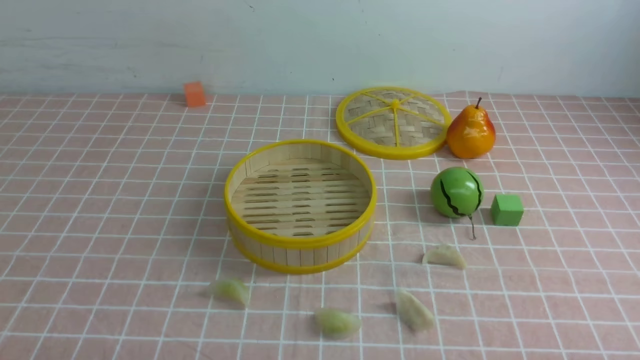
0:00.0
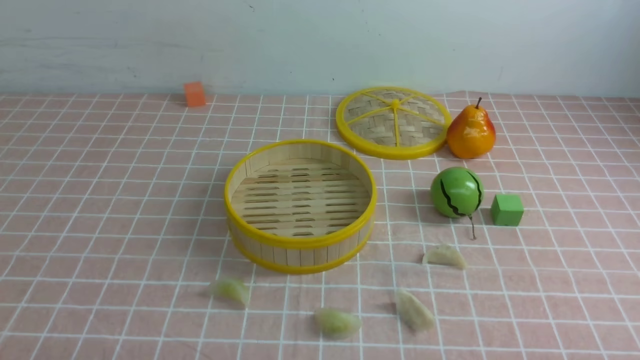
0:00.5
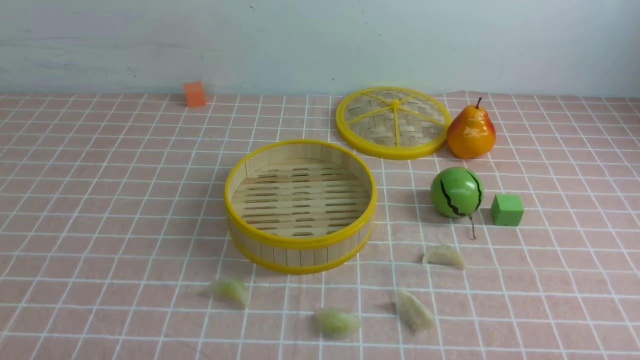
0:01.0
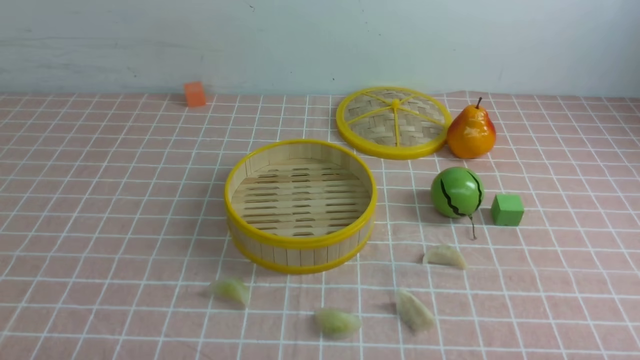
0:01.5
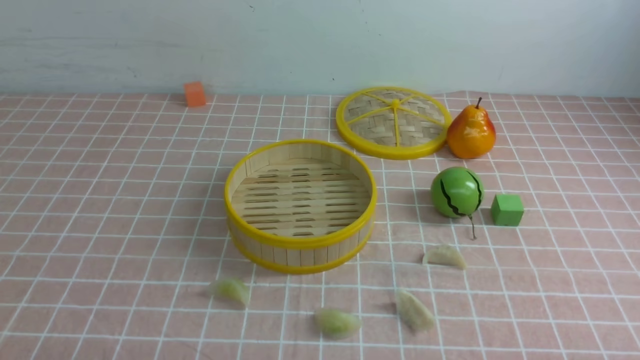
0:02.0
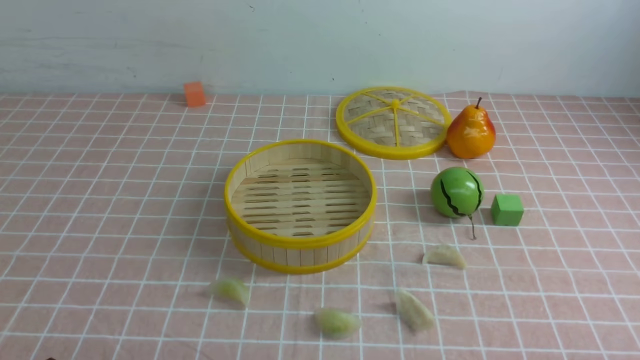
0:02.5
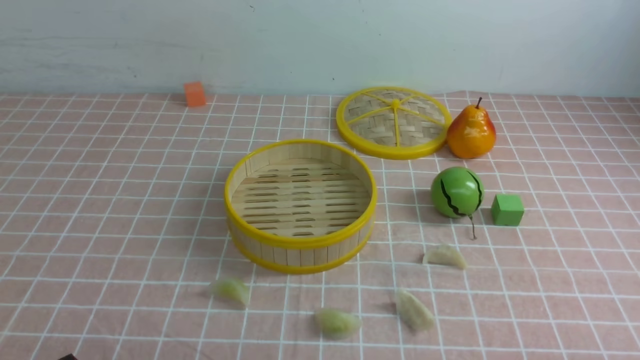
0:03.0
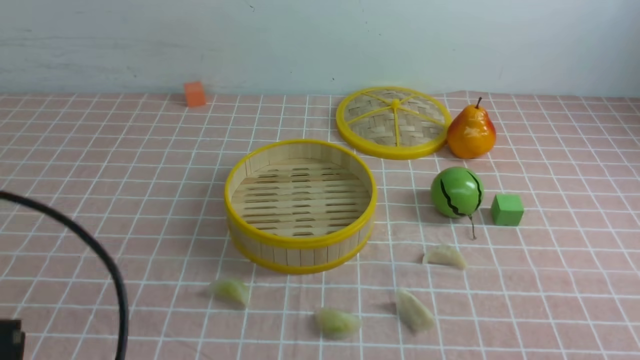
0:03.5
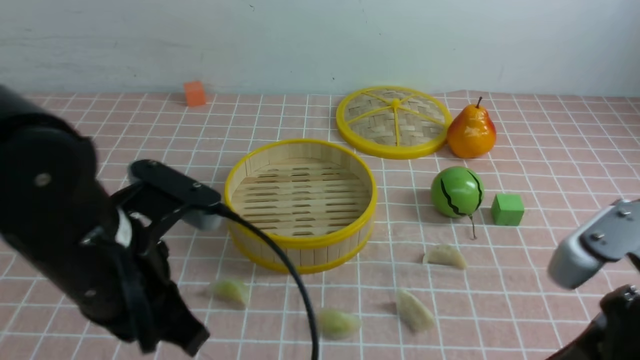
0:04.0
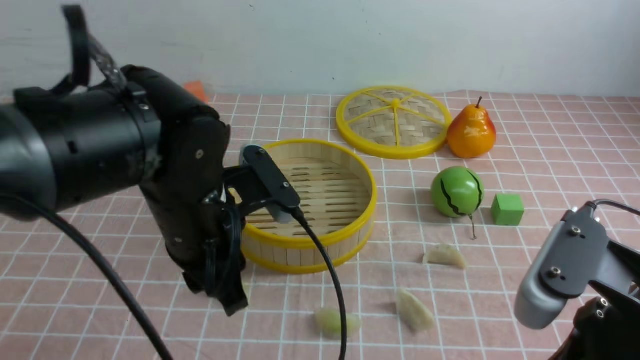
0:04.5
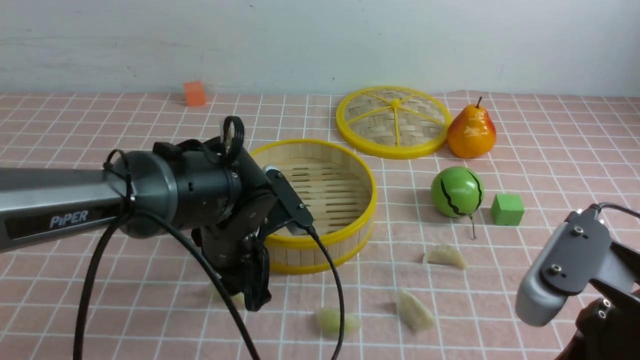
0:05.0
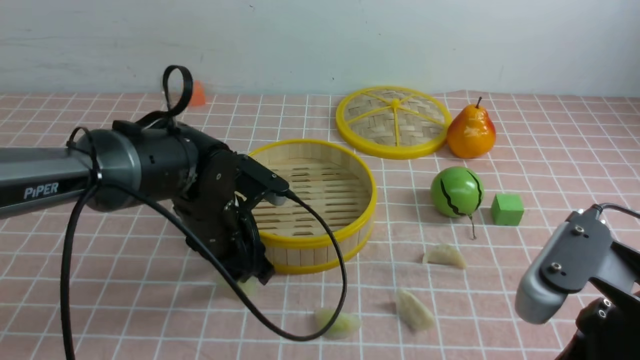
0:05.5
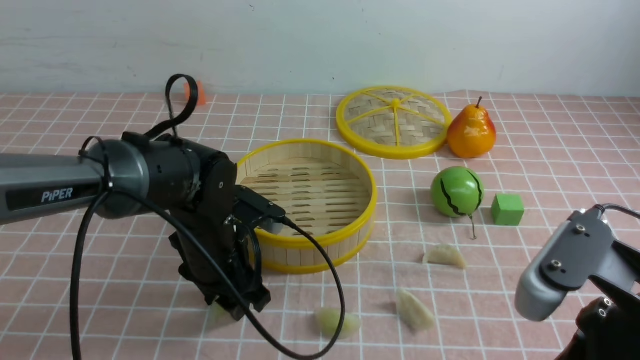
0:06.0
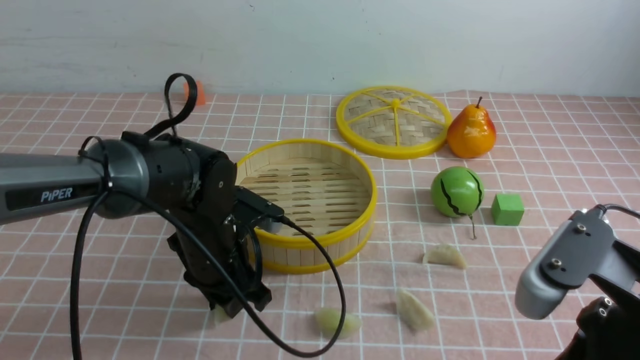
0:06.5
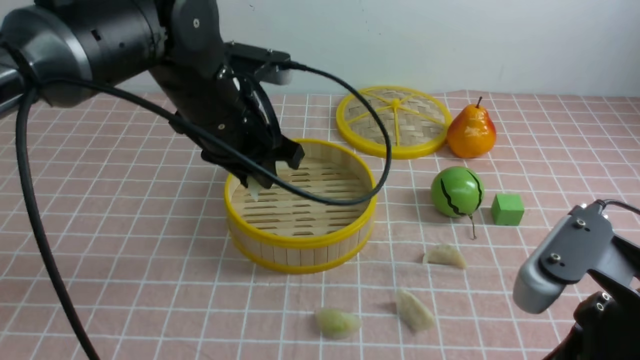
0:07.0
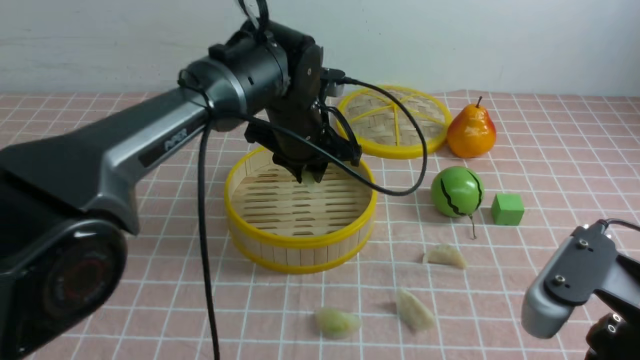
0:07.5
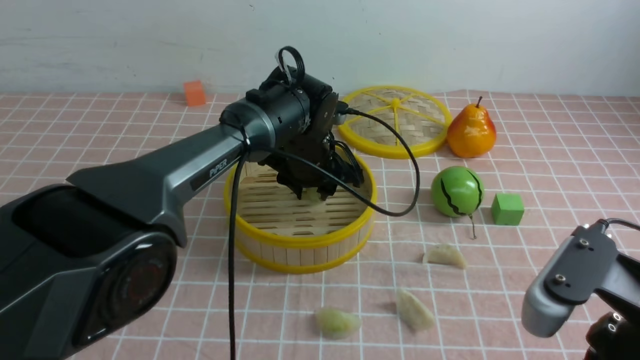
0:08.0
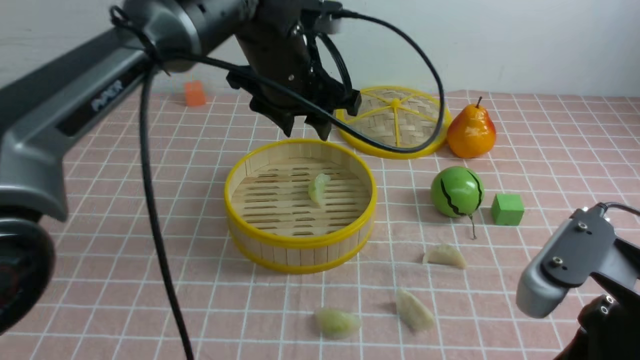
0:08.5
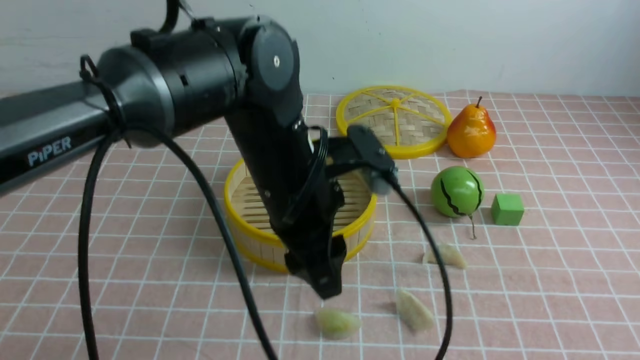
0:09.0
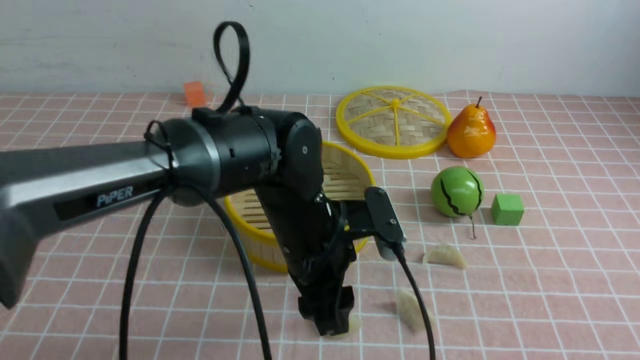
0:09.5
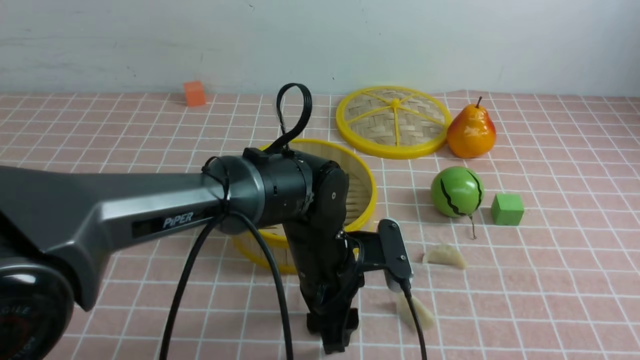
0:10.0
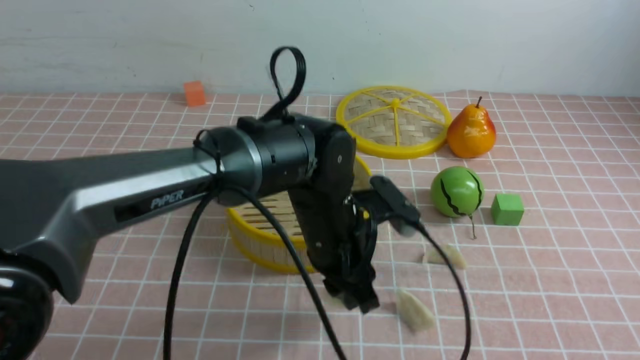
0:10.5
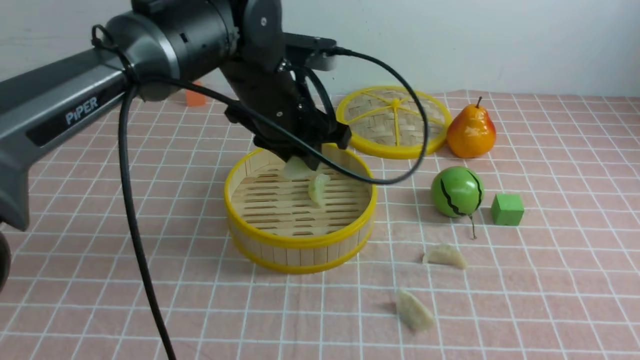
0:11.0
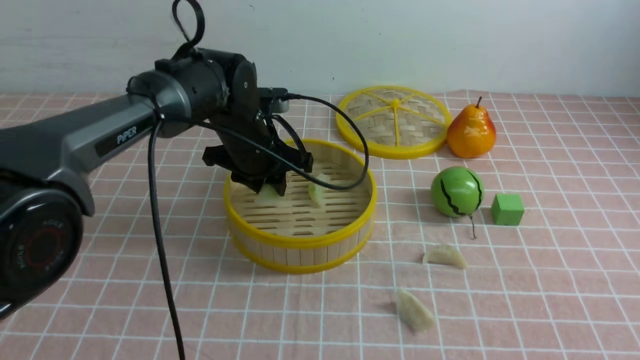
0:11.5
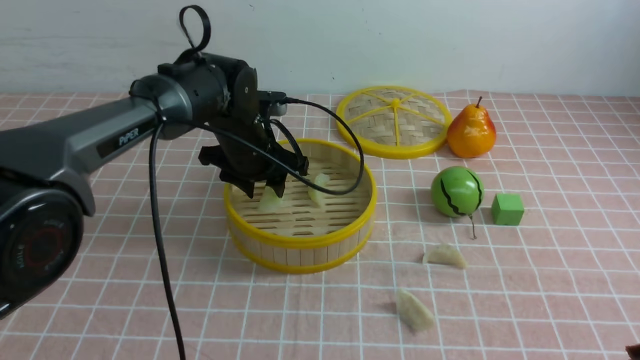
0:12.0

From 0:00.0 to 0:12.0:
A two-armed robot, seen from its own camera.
Task of the whole recording: put the dumplings into the steamer on the table with the pink tablecloth.
Step, from 0:00.0 to 0:06.5: use the left arm to grab a dumpling.
Step, from 0:07.0 to 0:08.0: use the left arm to put the dumpling into the steamer.
Step, from 0:08.5 to 0:10.0: use the left arm to grab a dumpling.
From 0:02.0 to 0:04.0: The right gripper travels upward, forward and to the left by about 15 cm, and closes up. Meanwhile the left gripper shifts approximately 20 cm forward, upward and to the right, and closes up.
From 0:04.0 to 0:06.0: The left gripper is displaced downward, forward and to the right by approximately 20 cm, and opens its fingers.
From 0:06.0 to 0:08.0: The left gripper travels forward and to the right by roughly 15 cm.
From 0:08.0 to 0:10.0: The left gripper is displaced backward by about 15 cm. Meanwhile the right gripper moves backward, upward and to the right, approximately 15 cm.
From 0:10.0 to 0:12.0: The left gripper moves forward and to the left, some 15 cm.

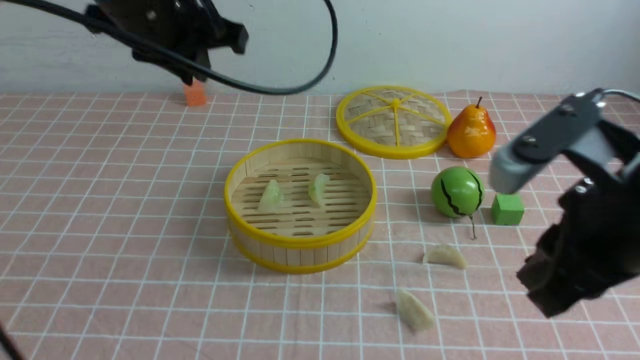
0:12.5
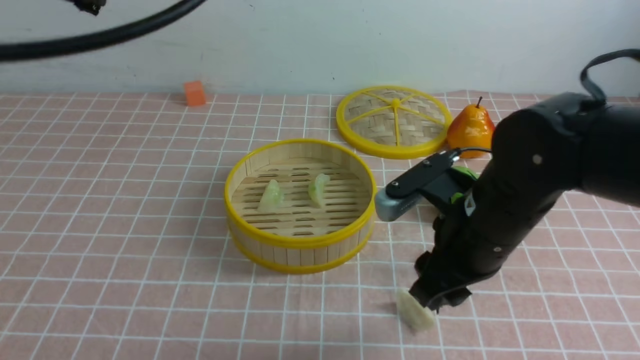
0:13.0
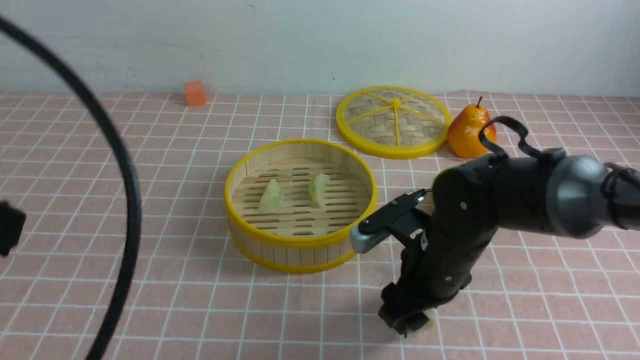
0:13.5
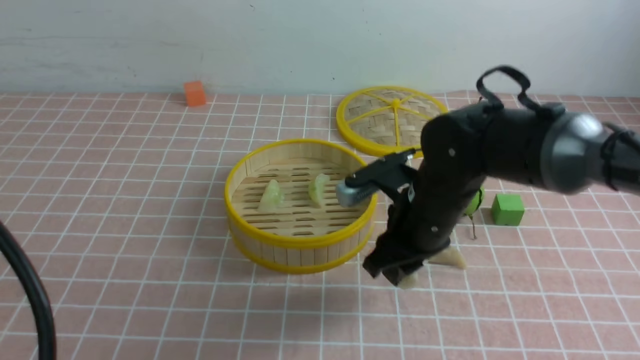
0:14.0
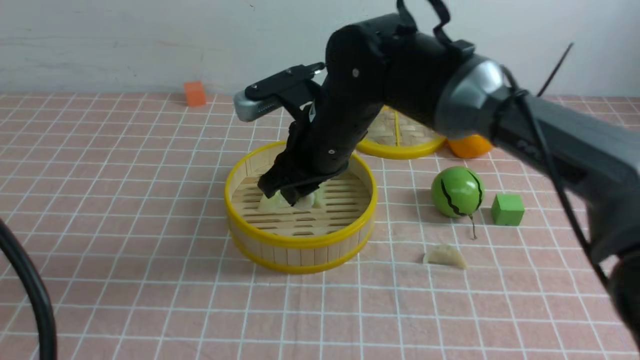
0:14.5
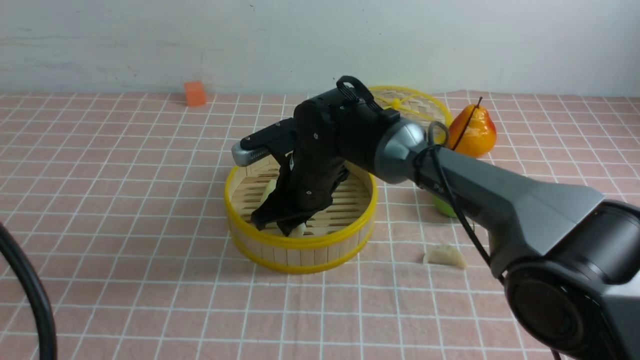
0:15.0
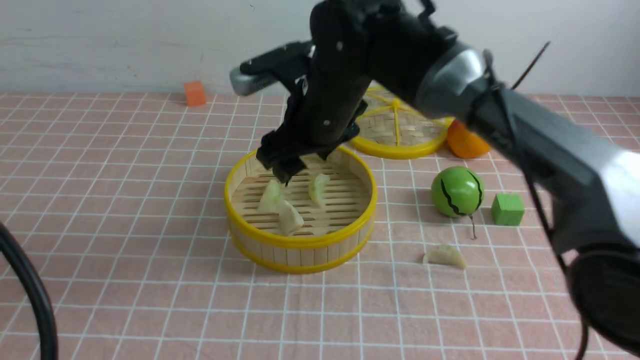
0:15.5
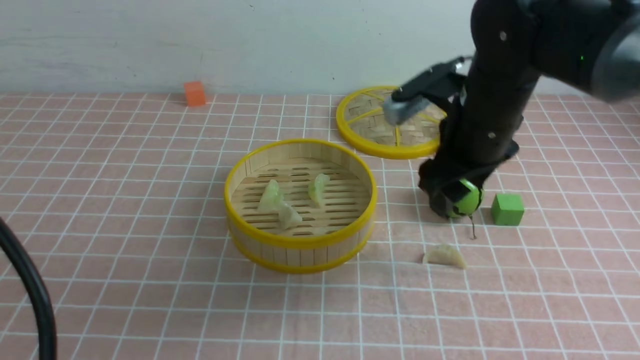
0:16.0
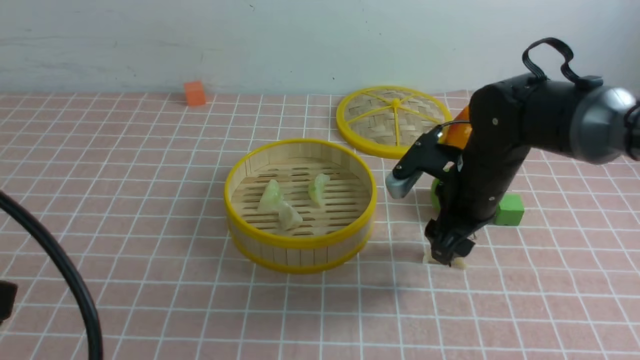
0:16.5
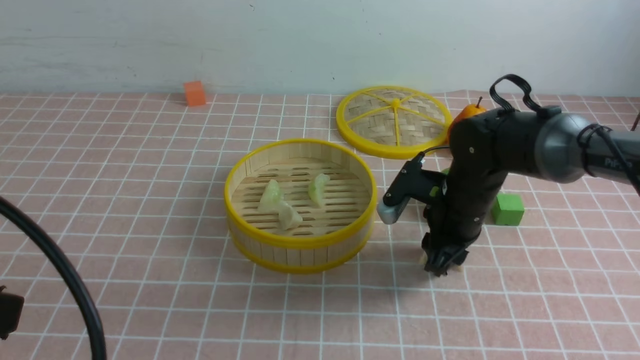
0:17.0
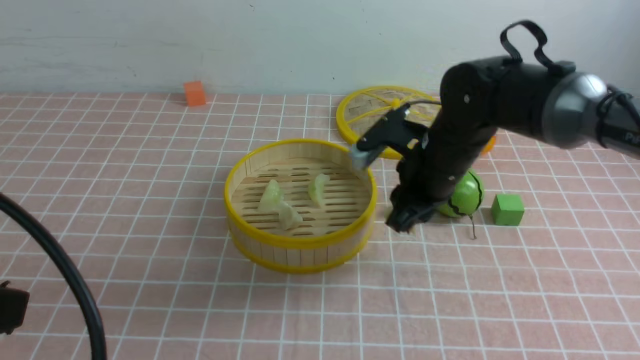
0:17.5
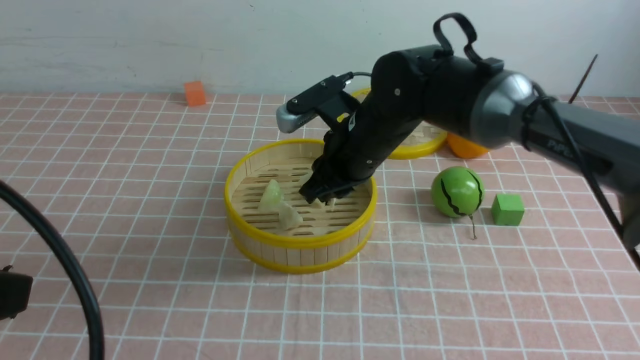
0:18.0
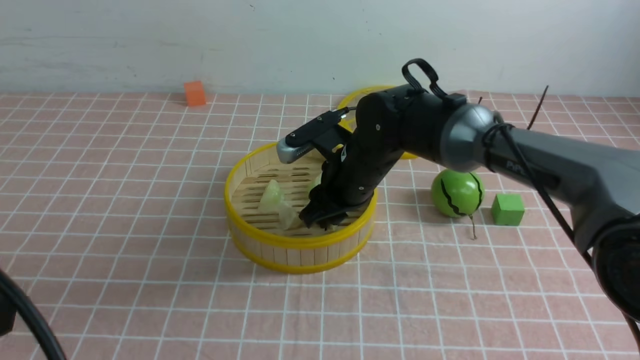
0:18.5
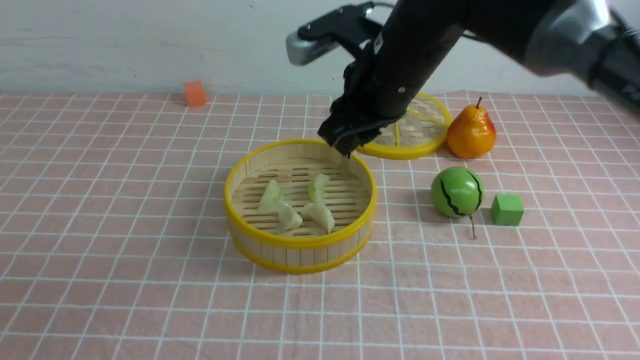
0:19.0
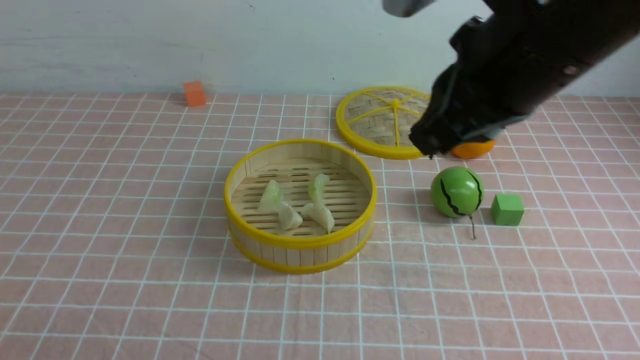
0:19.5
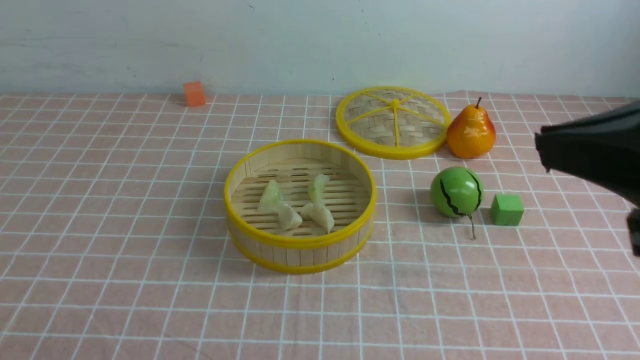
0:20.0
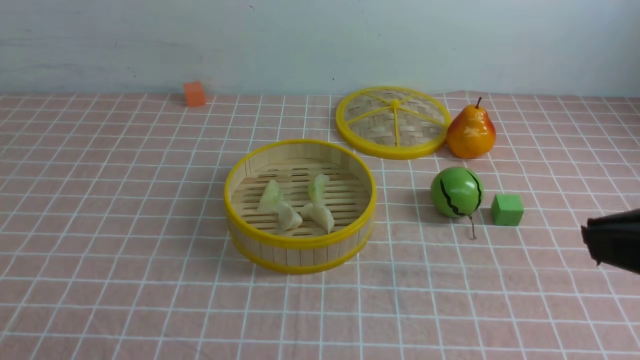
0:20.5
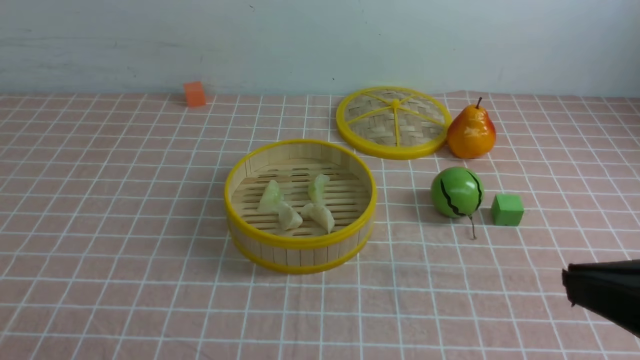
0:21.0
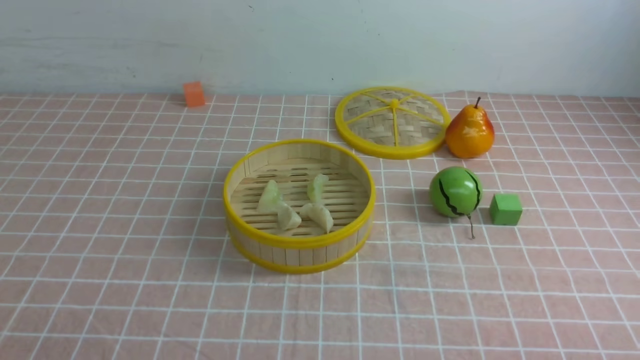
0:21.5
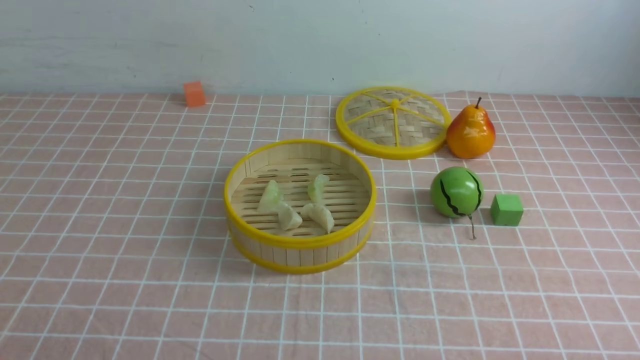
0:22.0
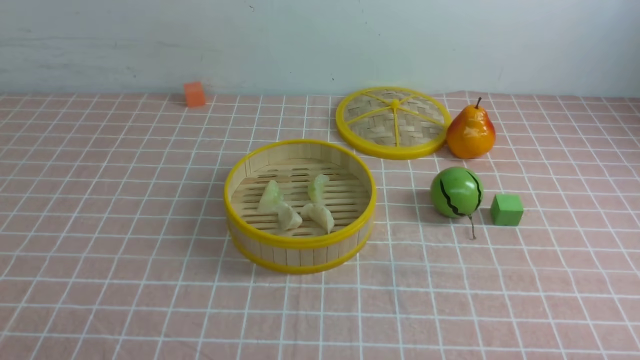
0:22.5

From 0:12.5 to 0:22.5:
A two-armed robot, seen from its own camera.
Task of the whole recording: put the dumplings into the steamer on the table with the pink tablecloth.
Step, from 0:12.5 to 0:13.5: use the right arm to grab a dumpling.
Step, from 0:14.5 to 0:15.0: use the right arm to put the dumpling into the steamer.
Step, from 0:16.0 to 0:17.0: use the right arm to grab a dumpling.
Step, from 0:17.5 to 0:18.5: use the right arm to put the dumpling into the steamer.
From 0:12.5 to 0:14.5: The right gripper is displaced forward and to the left by some 25 cm, and opens and closes again, while the left gripper is displaced backward by roughly 30 cm, and closes its fingers.
From 0:14.5 to 0:16.5: The right gripper moves to the right and downward, some 15 cm, and opens up.
From 0:16.5 to 0:18.5: The right gripper travels to the left by some 10 cm, and closes up.
From 0:18.5 to 0:20.5: The left gripper travels downward and backward by about 10 cm. Meanwhile the right gripper moves backward, upward and to the right, approximately 40 cm, and closes up.
From 0:20.5 to 0:22.5: The right gripper shifts approximately 25 cm downward.
